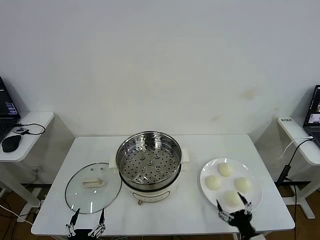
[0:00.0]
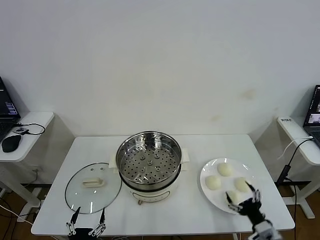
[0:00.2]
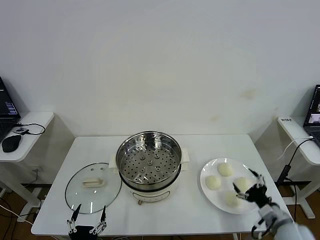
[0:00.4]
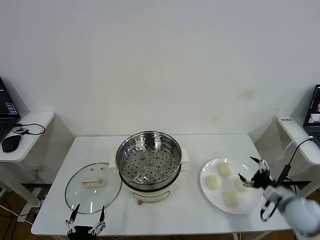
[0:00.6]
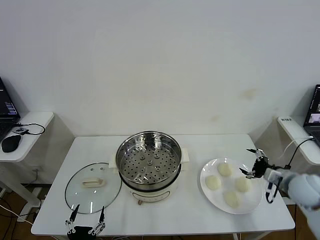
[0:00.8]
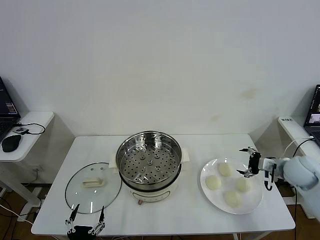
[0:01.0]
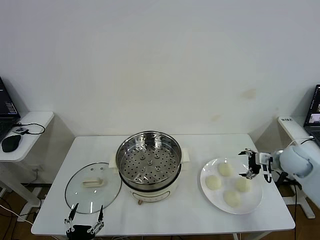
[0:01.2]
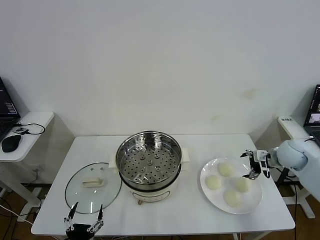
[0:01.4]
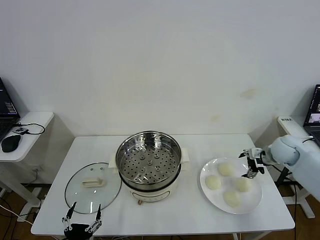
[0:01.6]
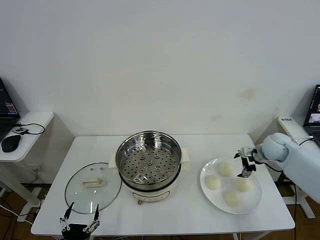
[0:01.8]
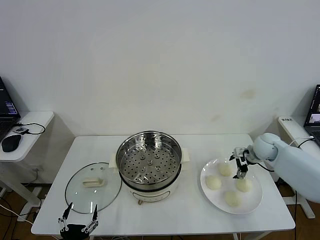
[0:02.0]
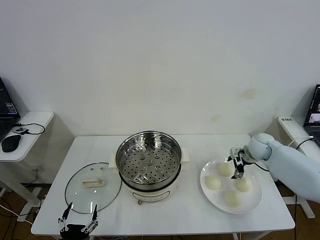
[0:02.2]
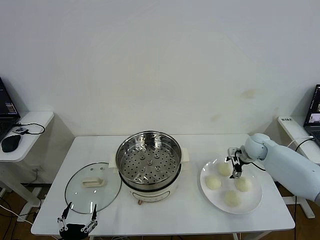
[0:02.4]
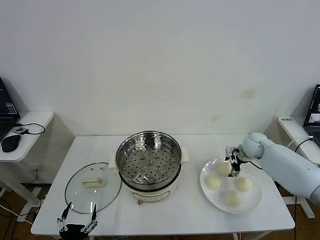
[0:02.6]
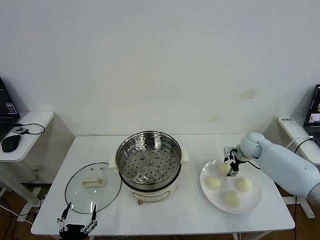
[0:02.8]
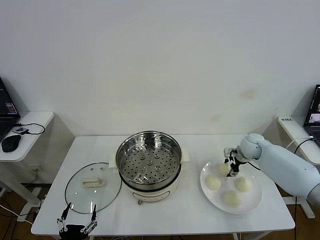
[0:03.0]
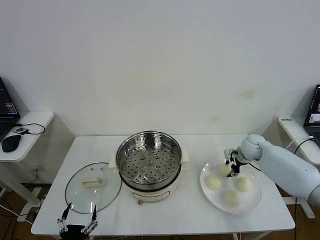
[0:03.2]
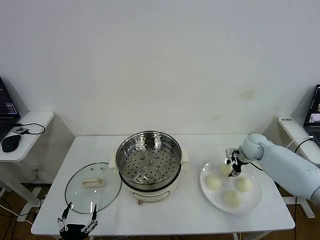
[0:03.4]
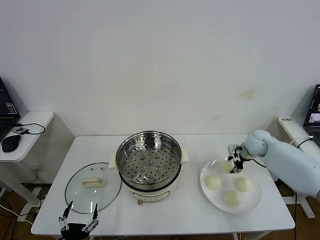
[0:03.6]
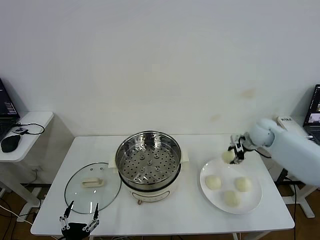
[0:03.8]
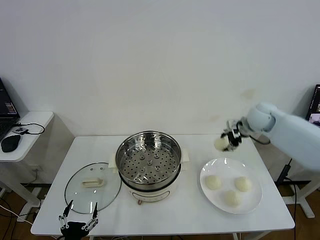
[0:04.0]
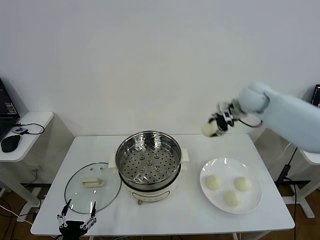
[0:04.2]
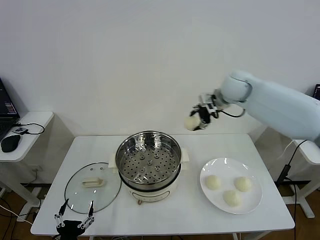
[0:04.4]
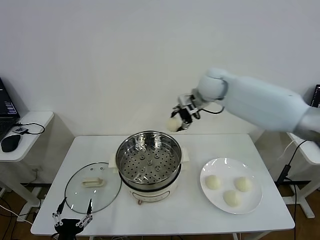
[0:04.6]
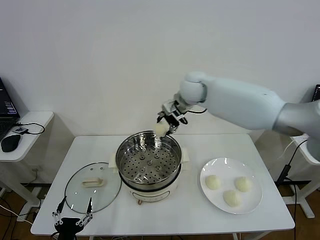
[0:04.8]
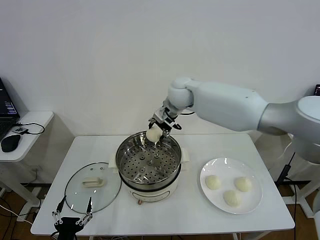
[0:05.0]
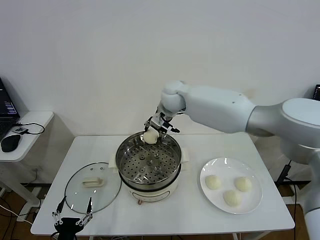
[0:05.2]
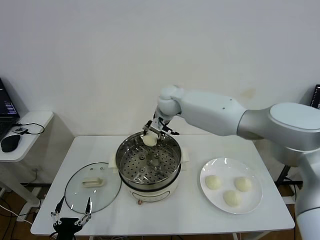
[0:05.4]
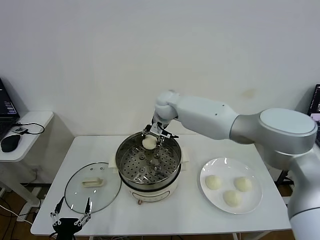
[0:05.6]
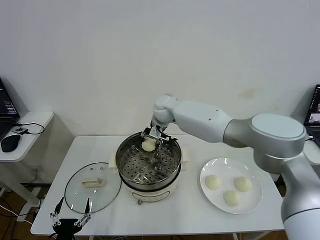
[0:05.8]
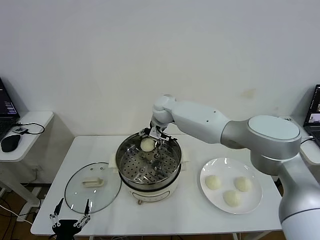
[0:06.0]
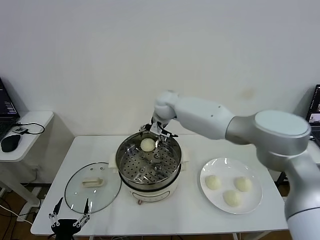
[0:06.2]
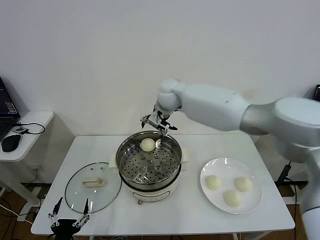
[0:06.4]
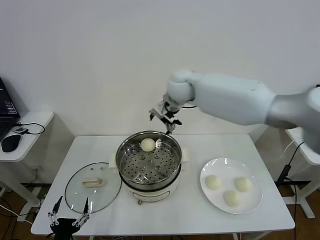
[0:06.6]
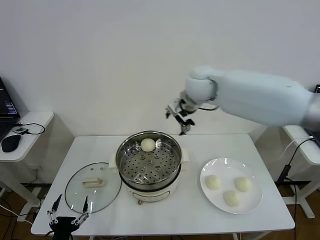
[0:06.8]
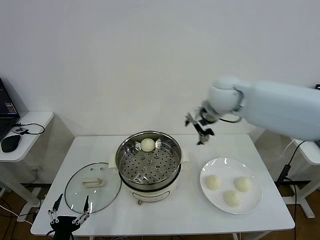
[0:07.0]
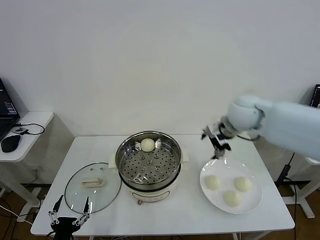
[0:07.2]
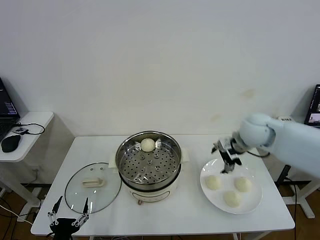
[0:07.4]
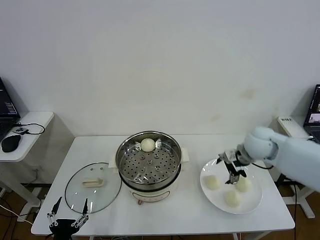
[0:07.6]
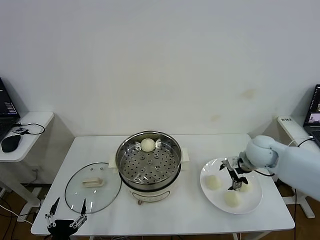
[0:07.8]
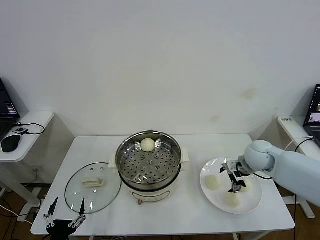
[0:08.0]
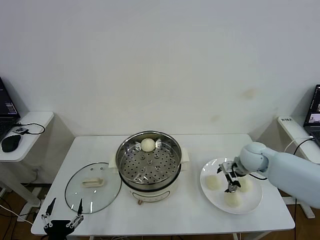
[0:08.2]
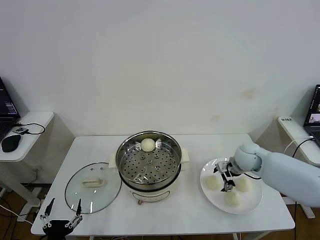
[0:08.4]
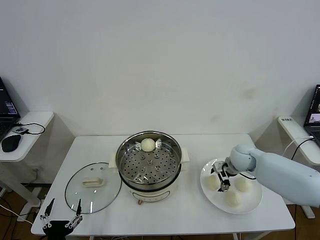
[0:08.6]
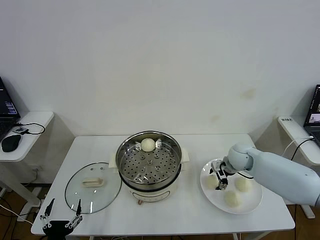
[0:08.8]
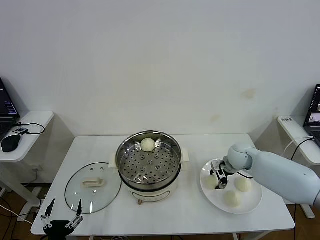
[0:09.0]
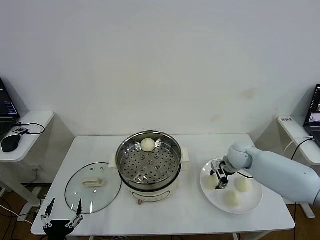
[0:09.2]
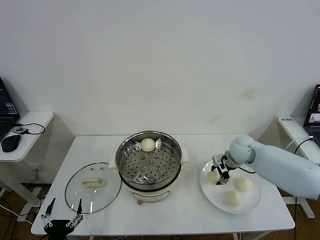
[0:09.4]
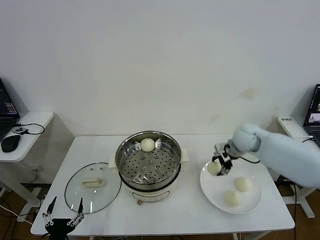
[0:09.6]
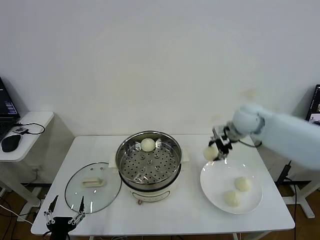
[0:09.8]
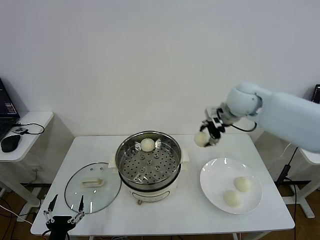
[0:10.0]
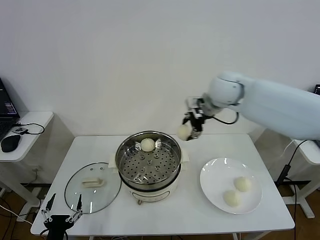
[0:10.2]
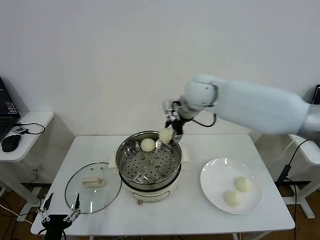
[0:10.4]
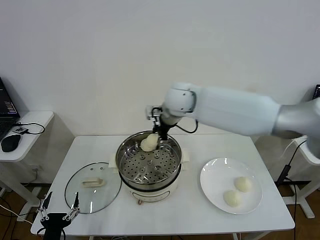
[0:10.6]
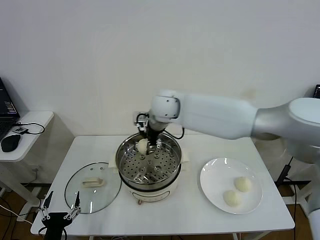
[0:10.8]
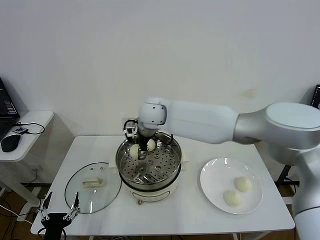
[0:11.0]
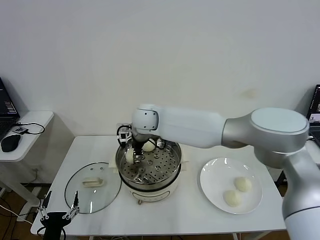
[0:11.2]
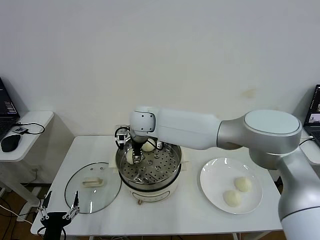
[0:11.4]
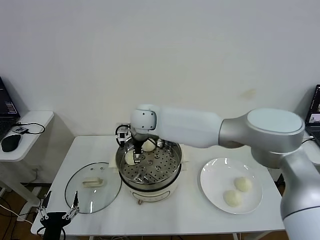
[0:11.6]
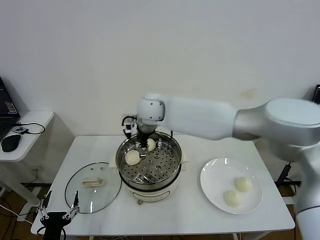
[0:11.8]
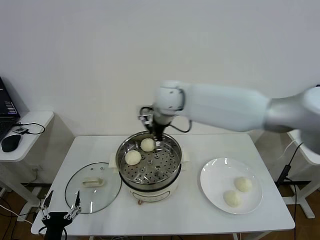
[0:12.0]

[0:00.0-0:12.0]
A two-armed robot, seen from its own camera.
Step, 0:00.0 to 0:03.0: Grasp the baozi in the plate with right gripper.
Step, 0:03.2 to 0:06.0: Place the baozi on the steamer with right gripper.
Step, 0:06.2 to 0:09.0: Grasp the baozi in the plate with right gripper.
Step, 0:09.4 to 0:11.4: Place the baozi on the steamer with right gripper.
0:01.6 to 0:03.0: The right gripper travels to the left, forward and downward by about 10 cm, and closes its fingers.
0:03.0 to 0:04.4: The right gripper shifts approximately 25 cm upward and to the left.
0:04.4 to 0:06.0: The right gripper heads to the left and downward, covering roughly 25 cm, and opens.
0:06.0 to 0:07.6: The right gripper travels to the right and backward by approximately 35 cm.
0:07.6 to 0:09.0: The right gripper goes roughly 10 cm downward, and closes its fingers.
0:09.0 to 0:10.4: The right gripper moves upward and to the left, some 30 cm.
0:10.4 to 0:12.0: The right gripper heads to the left, covering roughly 10 cm, and opens up.

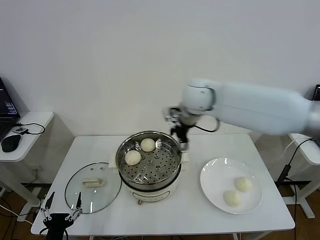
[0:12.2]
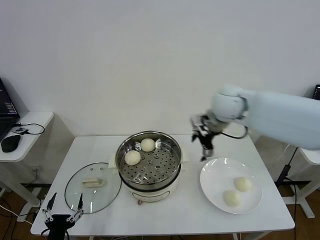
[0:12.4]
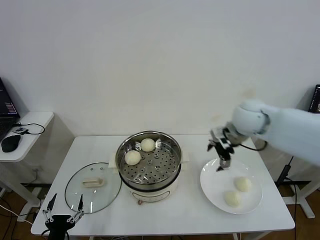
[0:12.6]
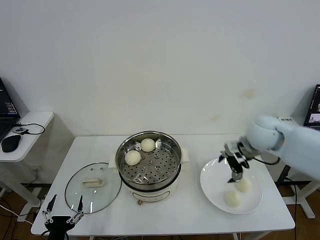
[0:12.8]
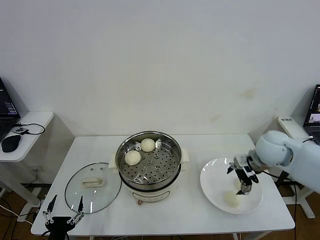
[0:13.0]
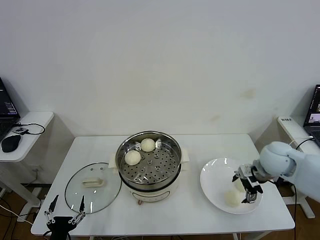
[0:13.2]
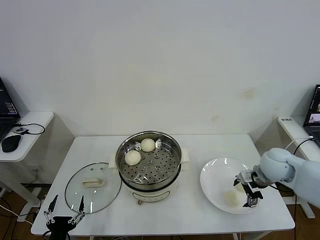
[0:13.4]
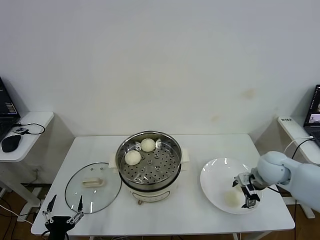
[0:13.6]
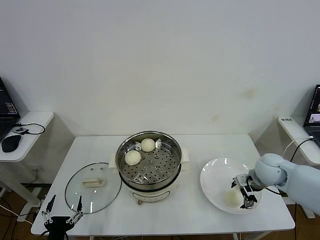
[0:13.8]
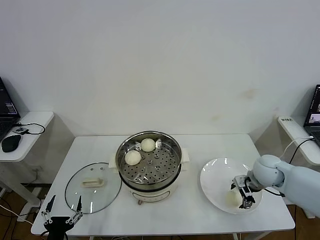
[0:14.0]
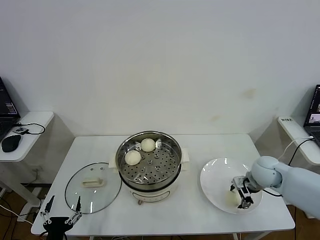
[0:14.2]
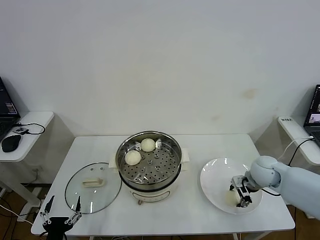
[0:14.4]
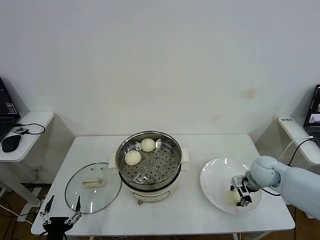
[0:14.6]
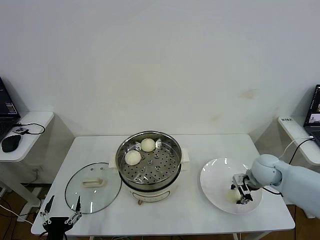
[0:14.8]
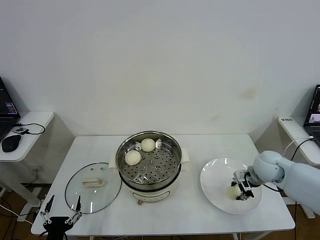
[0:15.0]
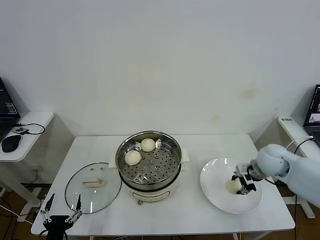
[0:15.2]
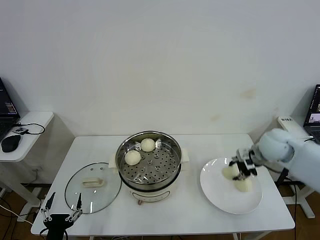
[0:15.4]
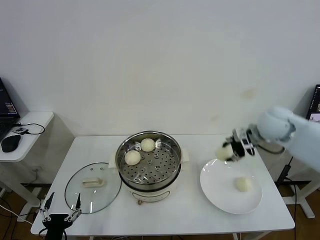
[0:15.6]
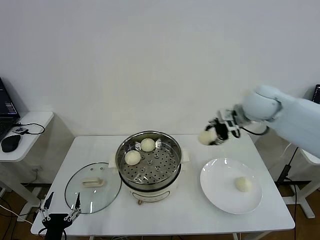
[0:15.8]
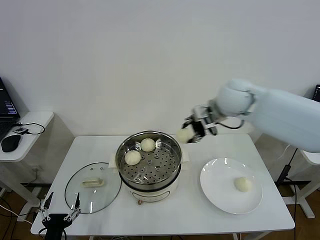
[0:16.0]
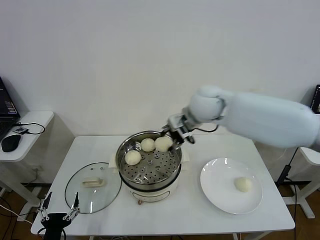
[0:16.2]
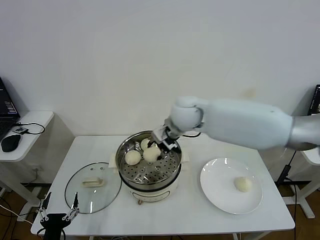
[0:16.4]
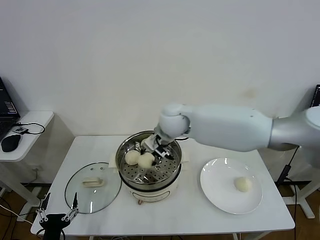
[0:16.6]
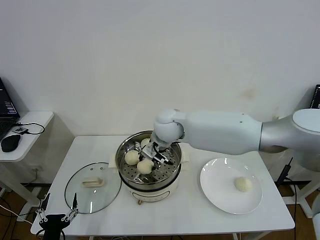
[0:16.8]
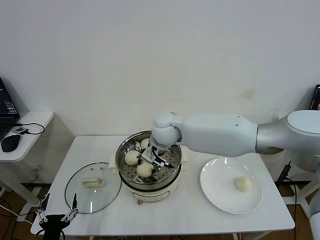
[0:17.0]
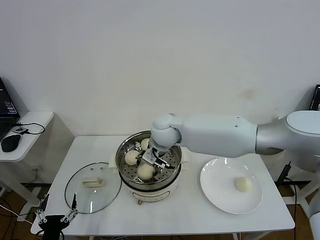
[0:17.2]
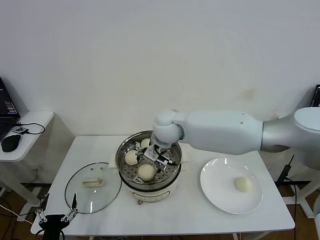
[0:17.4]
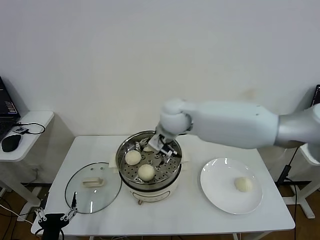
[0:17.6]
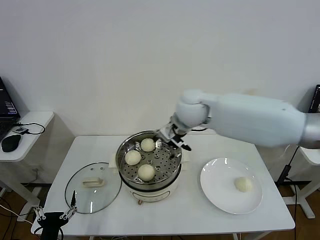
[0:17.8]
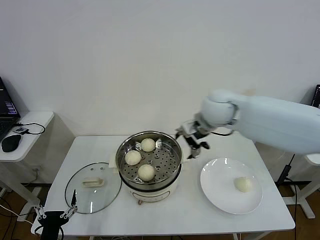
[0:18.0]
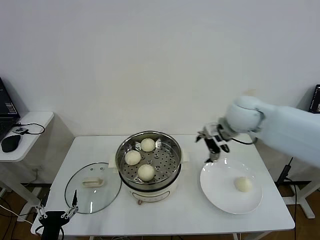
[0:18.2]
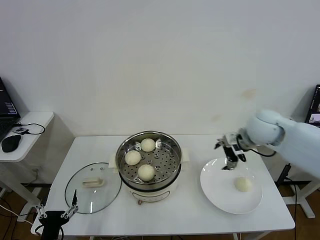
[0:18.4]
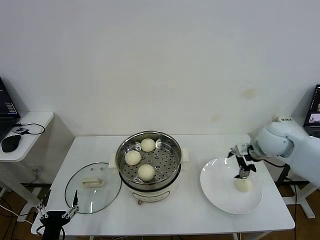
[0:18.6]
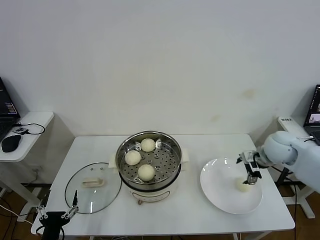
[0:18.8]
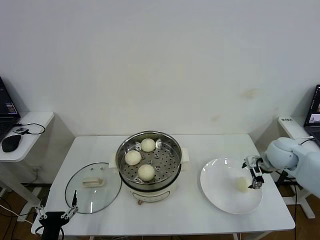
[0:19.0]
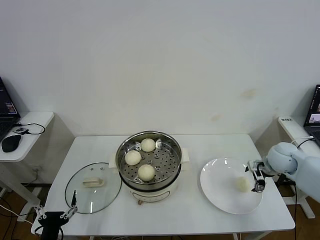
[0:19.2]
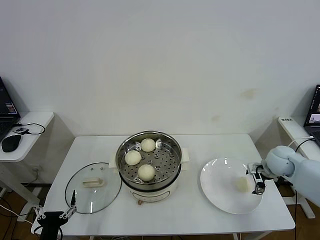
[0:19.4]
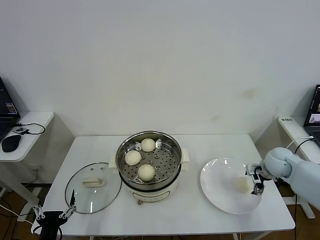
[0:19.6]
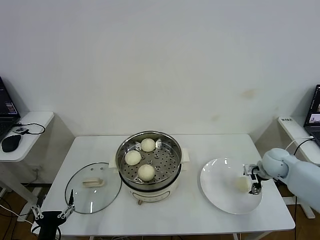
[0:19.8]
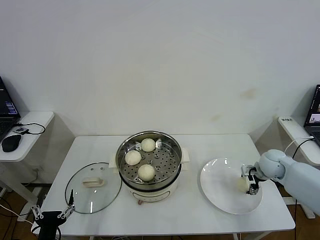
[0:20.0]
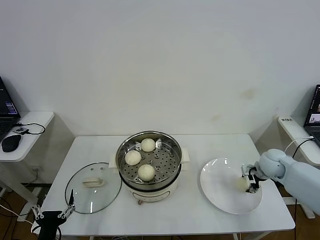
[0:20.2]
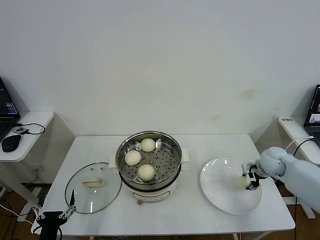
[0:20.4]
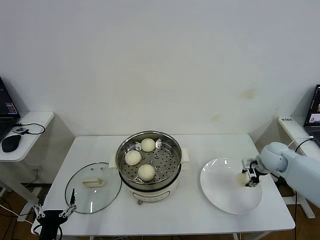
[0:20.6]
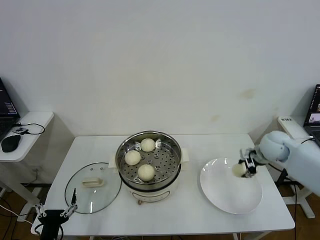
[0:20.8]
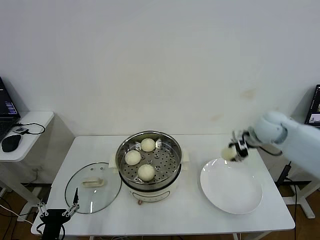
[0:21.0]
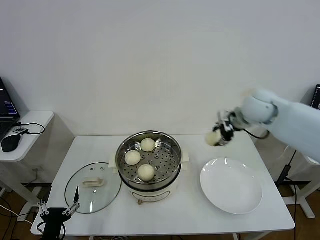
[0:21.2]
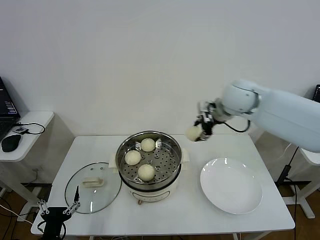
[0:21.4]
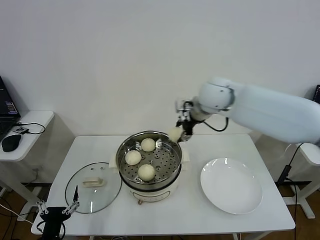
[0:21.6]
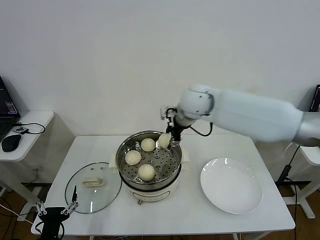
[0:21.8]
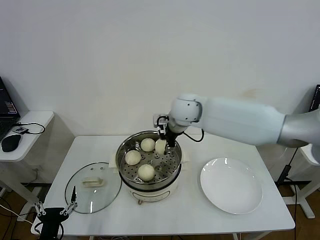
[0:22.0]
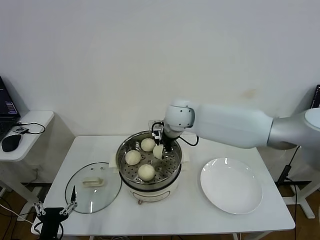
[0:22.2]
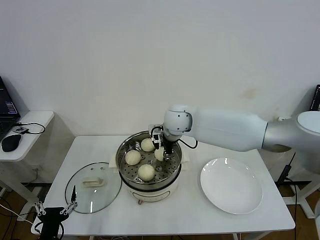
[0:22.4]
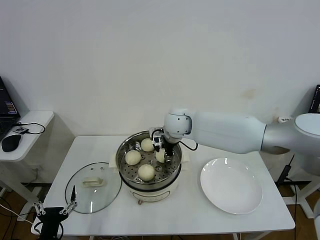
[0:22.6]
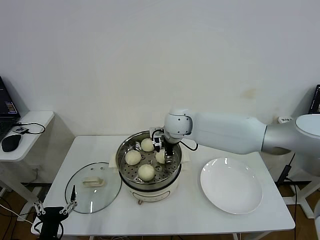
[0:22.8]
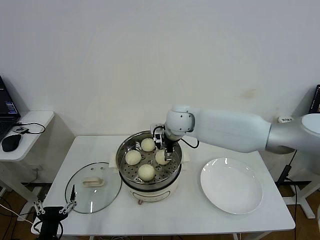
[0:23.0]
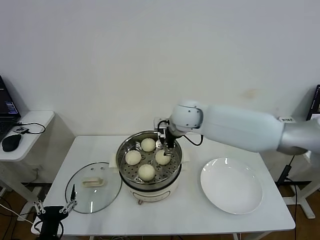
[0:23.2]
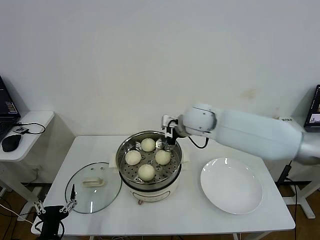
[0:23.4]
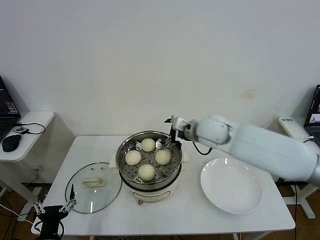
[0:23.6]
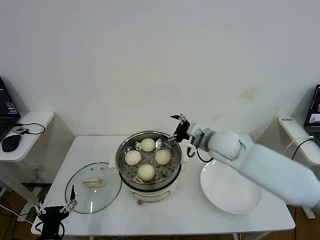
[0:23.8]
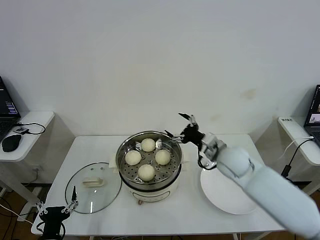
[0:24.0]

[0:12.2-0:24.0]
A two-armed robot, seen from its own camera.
Step, 0:12.2 to 0:14.8: Grasp the baozi in the plate with right gripper.
Step, 0:15.0 to 0:17.4: Place the baozi on the steamer with right gripper.
Step, 0:17.6 to 0:20.4: Grasp the baozi in the plate with right gripper.
Step, 0:20.6 to 0:22.8: Place the baozi on the steamer with right gripper.
0:12.2 to 0:13.6: The right gripper heads to the right, downward and backward, covering some 35 cm.
0:13.6 to 0:15.2: The right gripper closes up.
0:15.2 to 0:16.6: The right gripper is displaced to the left by some 30 cm.
0:16.6 to 0:18.2: The right gripper moves to the right, approximately 20 cm, and opens its fingers.
0:18.2 to 0:19.6: The right gripper travels downward and to the right by approximately 25 cm.
0:19.6 to 0:21.0: The right gripper is displaced upward and to the left by about 15 cm, and closes up.
0:21.0 to 0:22.6: The right gripper moves to the left, approximately 30 cm.
0:22.6 to 0:24.0: The right gripper travels to the right and backward by approximately 20 cm, and opens up.
